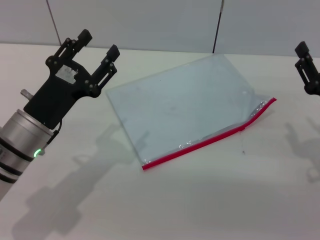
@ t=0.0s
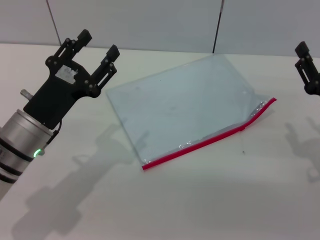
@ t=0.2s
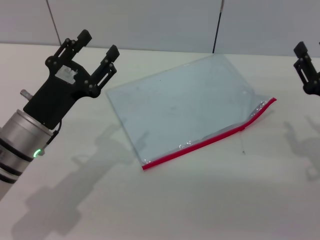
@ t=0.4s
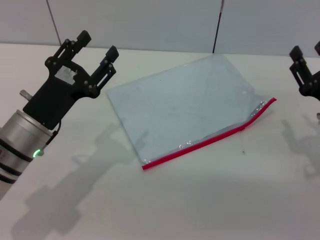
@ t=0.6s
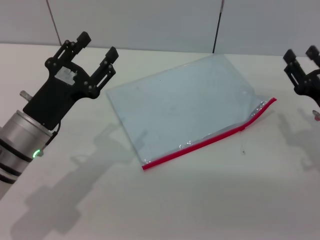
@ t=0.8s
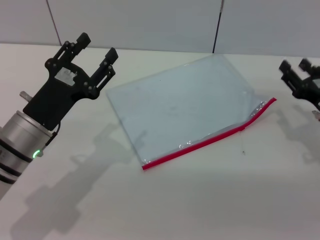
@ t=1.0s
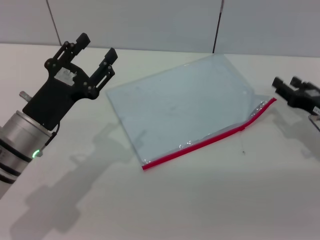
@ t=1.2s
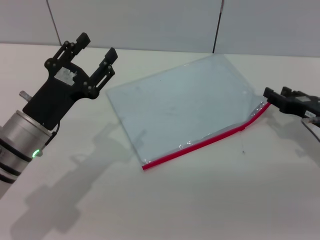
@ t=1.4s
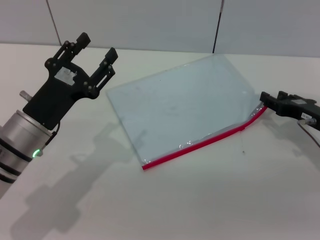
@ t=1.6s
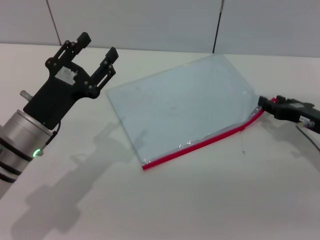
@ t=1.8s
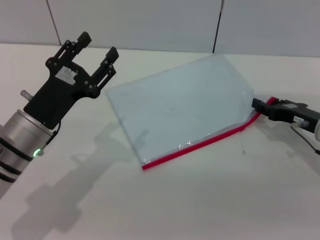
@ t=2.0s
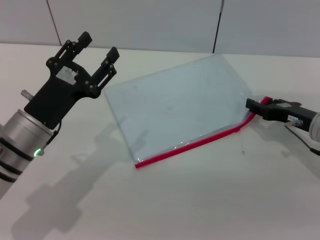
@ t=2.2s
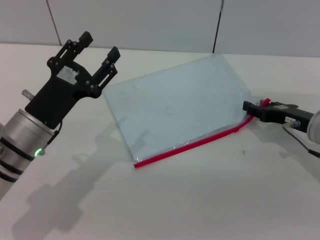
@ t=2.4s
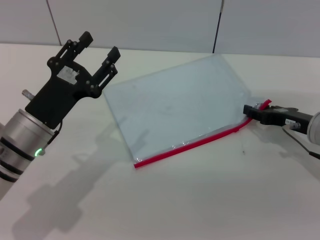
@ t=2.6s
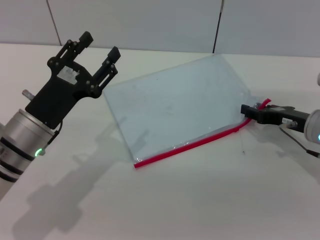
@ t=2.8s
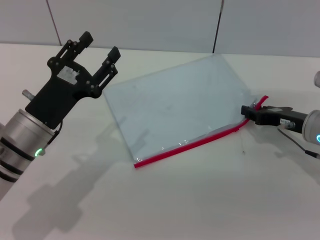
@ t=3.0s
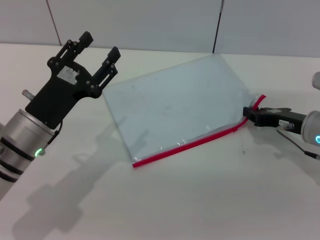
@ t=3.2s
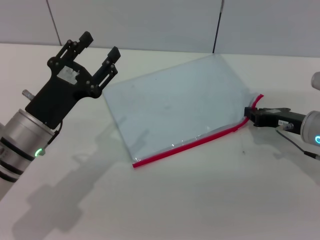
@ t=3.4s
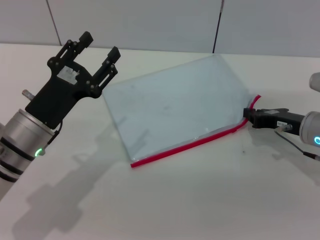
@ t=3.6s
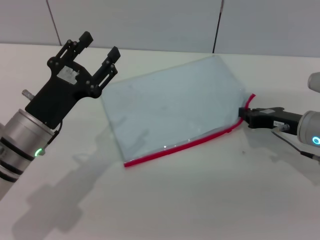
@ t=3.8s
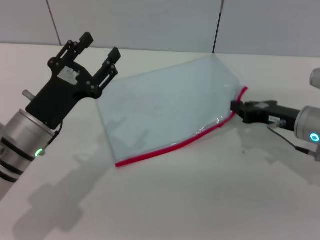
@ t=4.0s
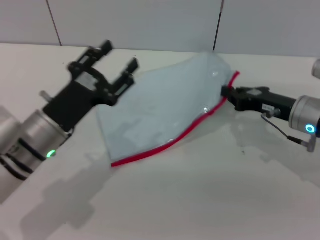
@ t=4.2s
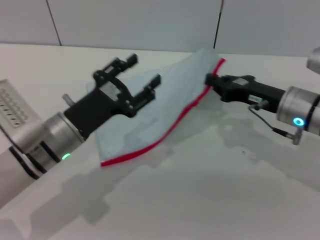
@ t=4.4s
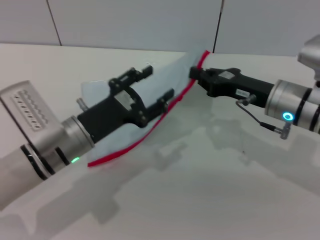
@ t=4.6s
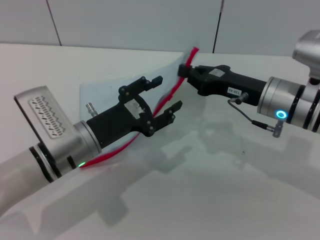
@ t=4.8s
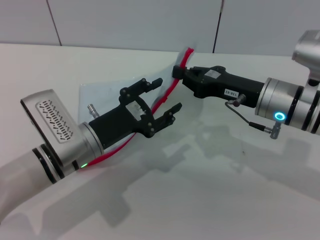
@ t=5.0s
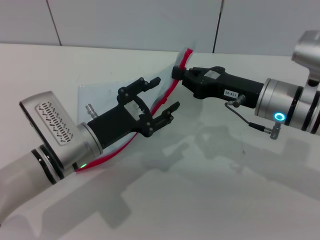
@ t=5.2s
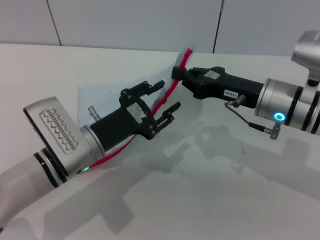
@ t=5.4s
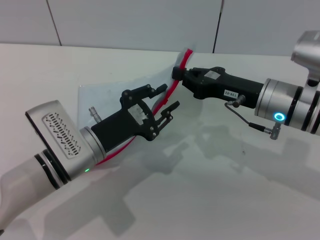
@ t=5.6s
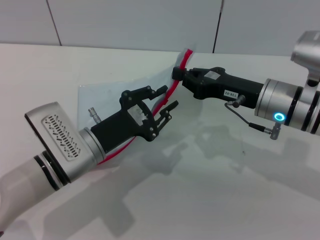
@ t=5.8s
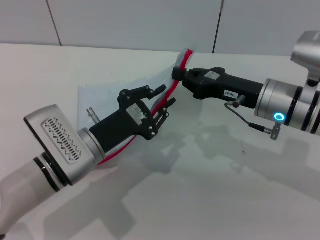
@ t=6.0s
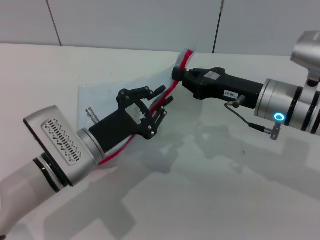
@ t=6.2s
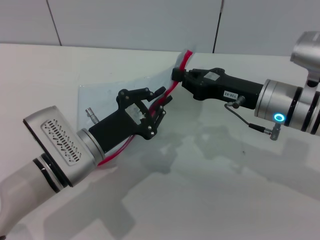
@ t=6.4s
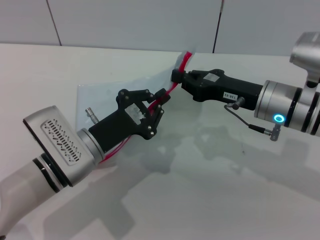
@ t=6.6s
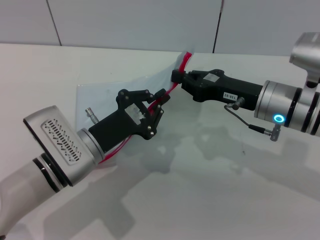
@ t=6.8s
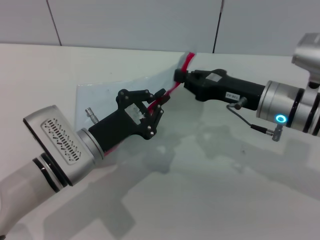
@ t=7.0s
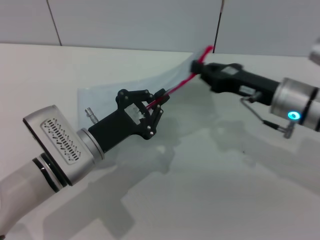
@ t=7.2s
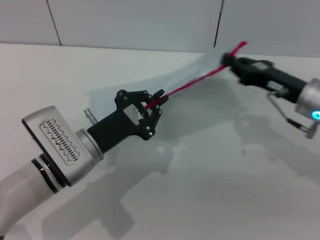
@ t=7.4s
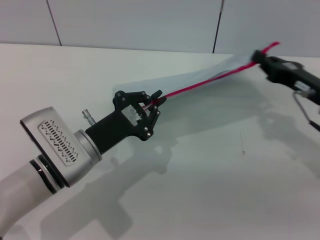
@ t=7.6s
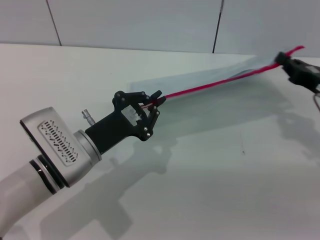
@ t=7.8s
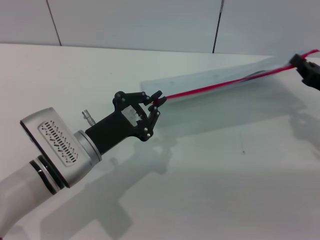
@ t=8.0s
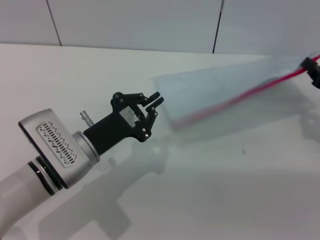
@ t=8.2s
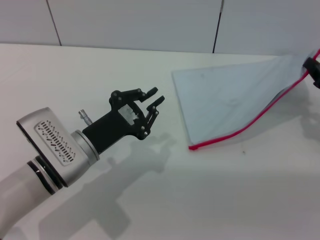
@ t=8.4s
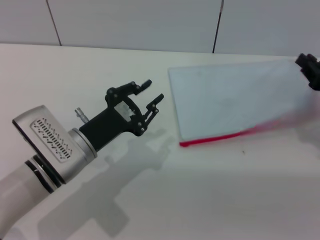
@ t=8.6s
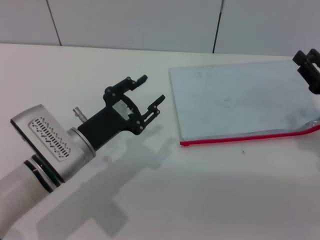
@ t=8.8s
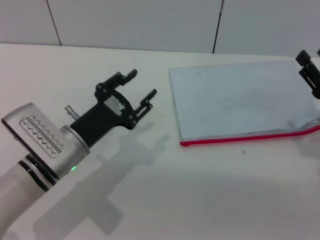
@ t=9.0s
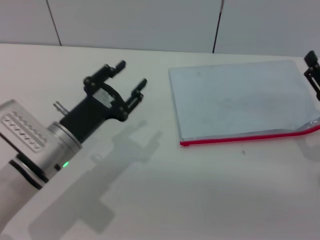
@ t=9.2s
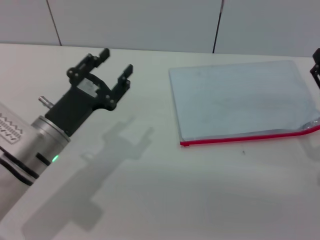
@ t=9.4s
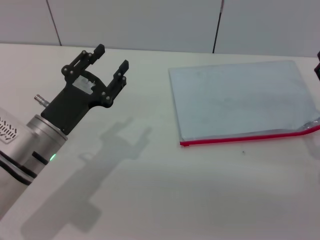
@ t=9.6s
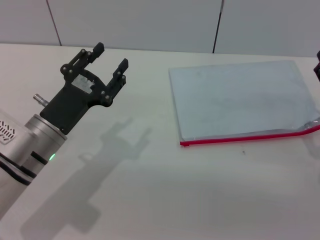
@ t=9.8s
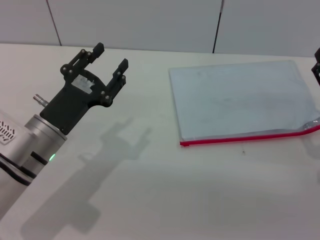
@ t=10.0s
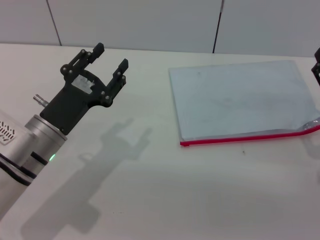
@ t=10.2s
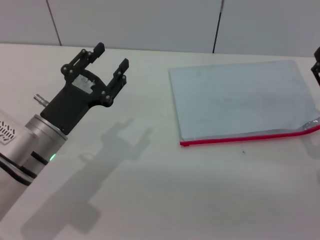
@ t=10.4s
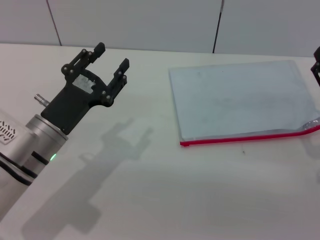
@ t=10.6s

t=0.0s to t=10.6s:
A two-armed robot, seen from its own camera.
Step, t=0.0s to t=4.4s: Pick up the transparent plastic bag with the right gripper.
Step, t=4.6s to t=8.0s: Pulling up the zipper on the transparent plastic bag with the left gripper to close it.
Step, t=8.2s to t=9.2s: Place the transparent plastic bag.
t=0.0s to t=1.6s: The right gripper shifts roughly 5 cm forward.
t=1.6s to t=3.0s: The grippers make only small movements.
t=3.0s to t=4.6s: The right gripper heads to the left and upward, covering approximately 10 cm, and closes its fingers.
t=4.6s to t=6.0s: The left gripper closes up.
t=6.0s to t=7.6s: The right gripper heads to the right, covering approximately 10 cm; the left gripper closes up.
t=7.6s to t=9.0s: The left gripper opens its fingers. Meanwhile the right gripper goes about 5 cm backward, and opens its fingers.
t=9.0s to t=10.6s: The right gripper opens.

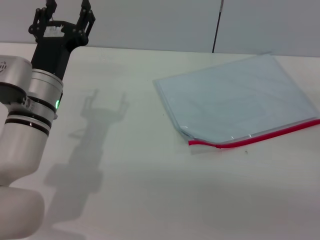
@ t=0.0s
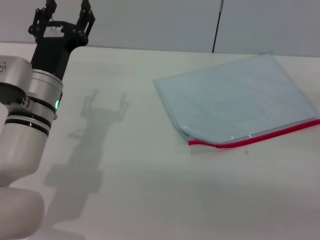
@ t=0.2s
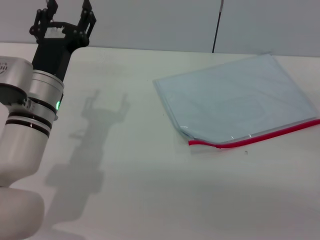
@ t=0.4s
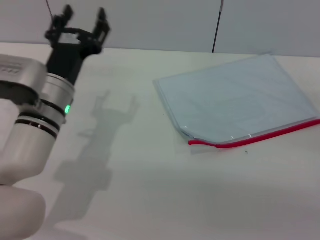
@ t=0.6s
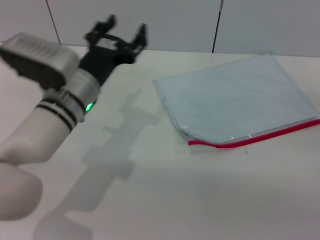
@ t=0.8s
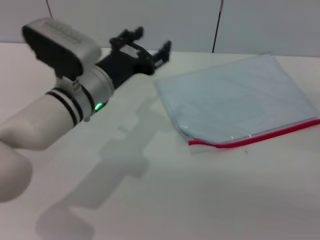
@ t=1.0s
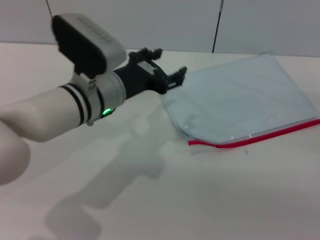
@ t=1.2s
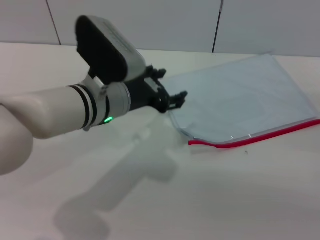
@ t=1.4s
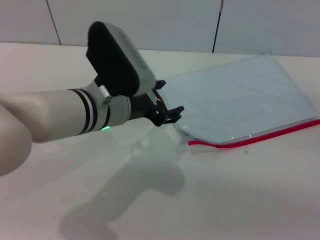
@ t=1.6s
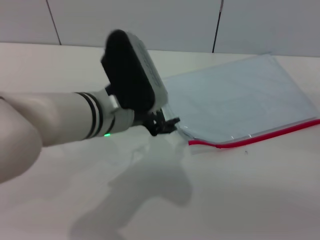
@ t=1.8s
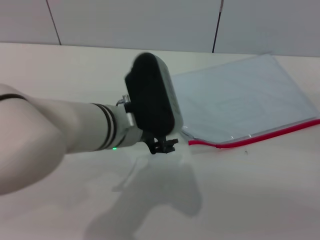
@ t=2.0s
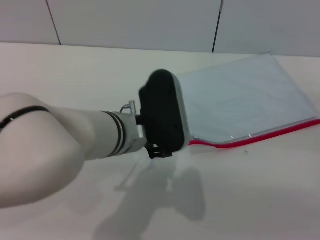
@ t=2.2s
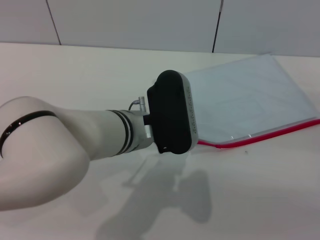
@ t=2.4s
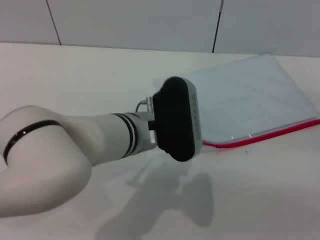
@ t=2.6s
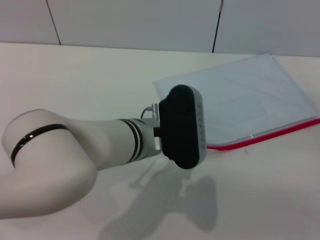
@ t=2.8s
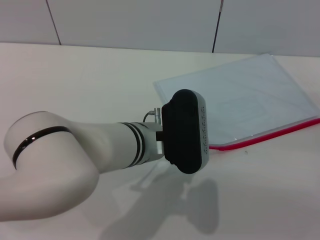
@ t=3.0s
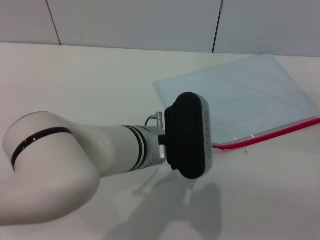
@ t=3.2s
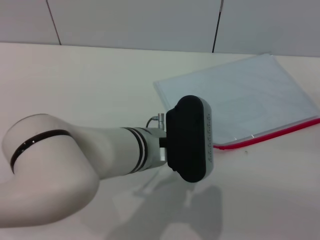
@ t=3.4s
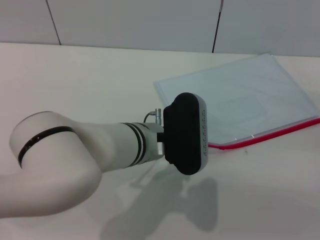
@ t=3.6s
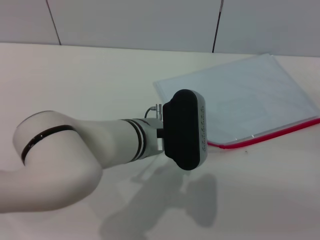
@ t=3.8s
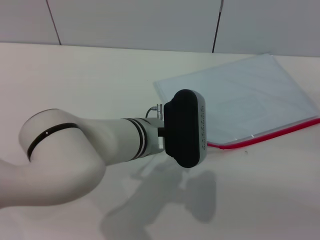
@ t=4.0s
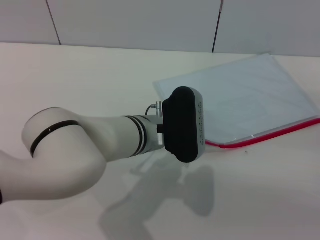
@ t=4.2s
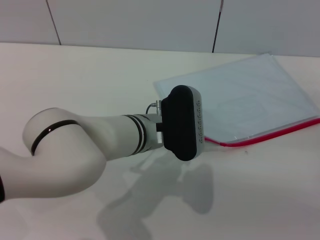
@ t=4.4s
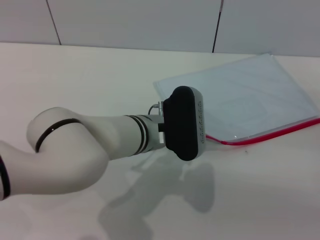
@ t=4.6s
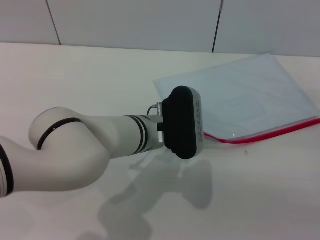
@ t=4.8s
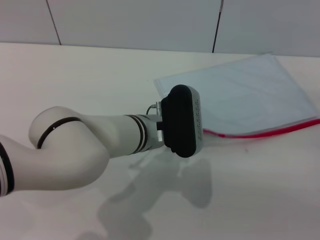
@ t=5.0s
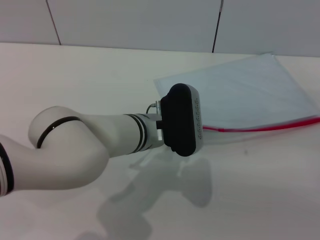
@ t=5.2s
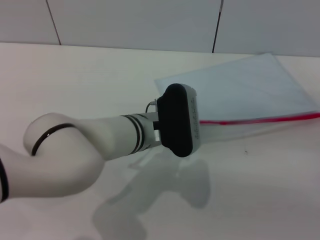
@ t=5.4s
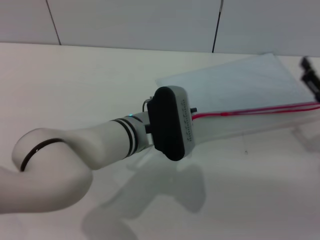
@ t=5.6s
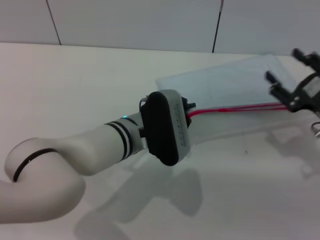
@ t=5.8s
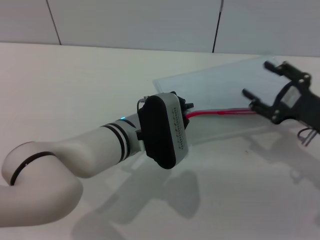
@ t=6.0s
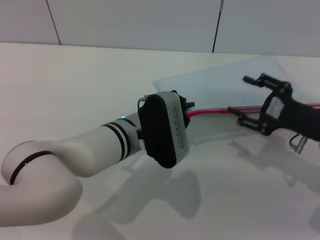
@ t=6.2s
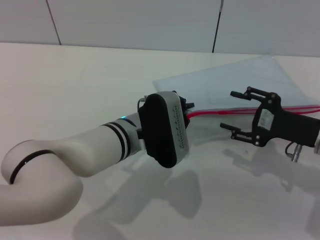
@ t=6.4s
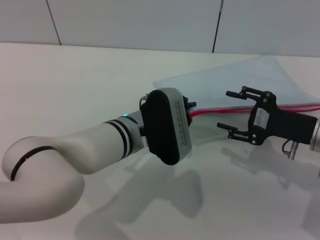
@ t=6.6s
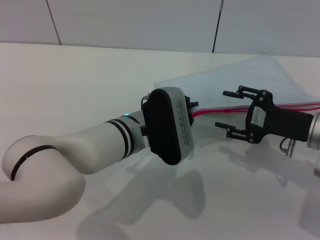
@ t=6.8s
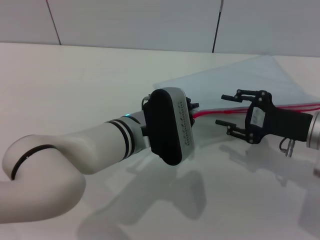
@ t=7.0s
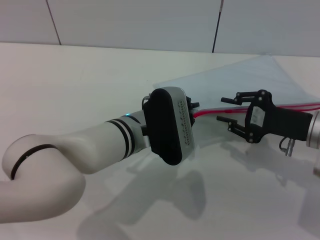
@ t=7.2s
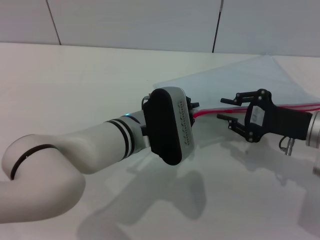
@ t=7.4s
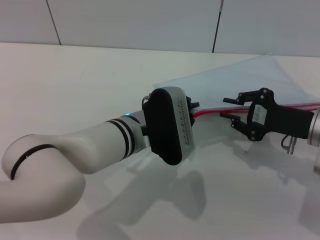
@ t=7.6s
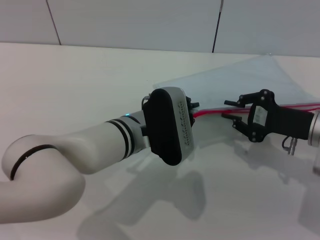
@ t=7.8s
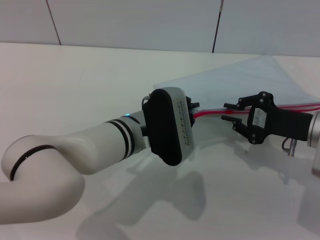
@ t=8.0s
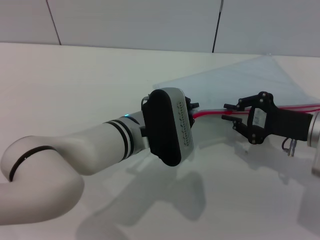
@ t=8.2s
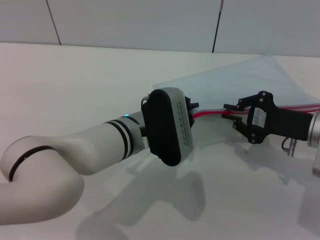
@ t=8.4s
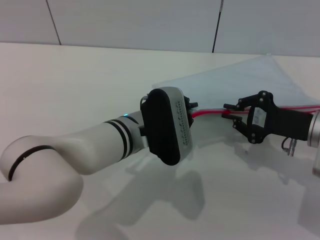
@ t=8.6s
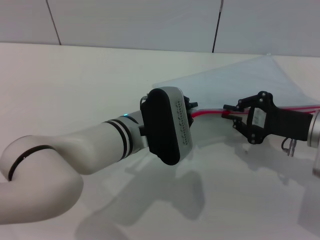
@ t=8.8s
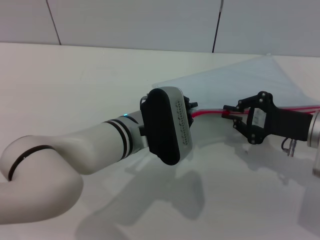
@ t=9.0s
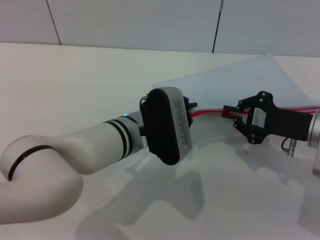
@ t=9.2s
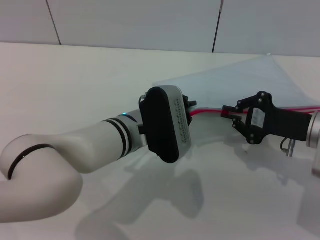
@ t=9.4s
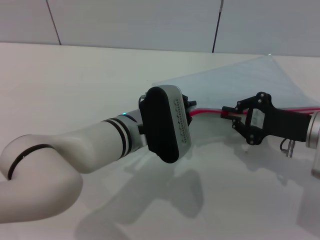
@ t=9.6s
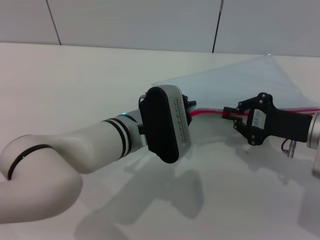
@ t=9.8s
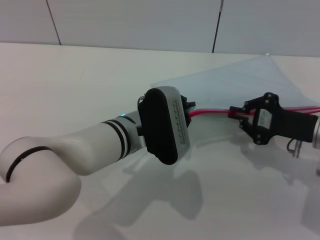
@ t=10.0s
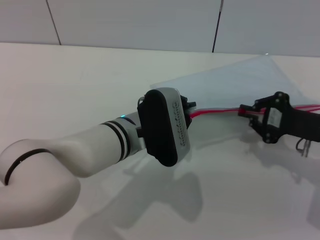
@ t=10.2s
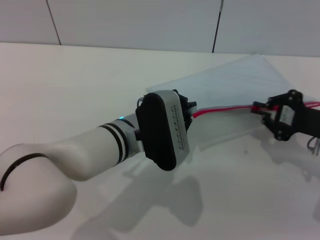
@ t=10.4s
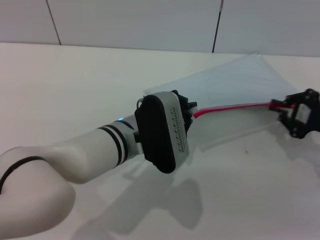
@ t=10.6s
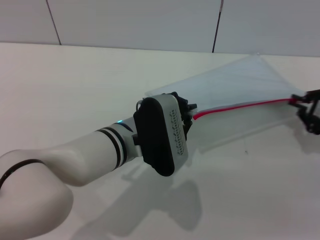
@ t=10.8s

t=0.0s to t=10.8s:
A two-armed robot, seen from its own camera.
Step, t=0.0s to t=5.8s: Pick up the transparent plastic bag with the left gripper.
t=0.0s to t=1.6s: The left gripper heads to the right, covering about 10 cm.
t=1.6s to t=3.0s: The left gripper shifts some 5 cm to the right.
t=3.0s to t=4.6s: The grippers stay close to where they were, moving slightly.
t=4.6s to t=6.2s: The left gripper closes its fingers. Meanwhile the right gripper moves to the left, some 5 cm.
t=6.2s to t=7.8s: The right gripper closes up.
t=7.8s to t=9.2s: Both grippers stay put.
t=9.2s to t=10.8s: The right gripper travels to the right by roughly 10 cm.
